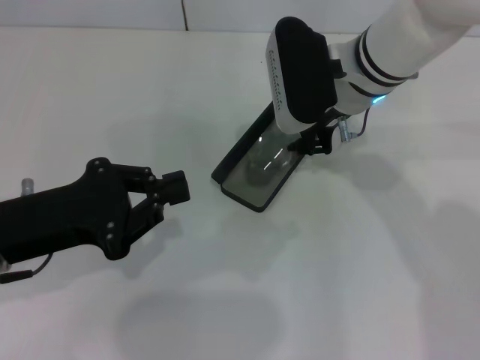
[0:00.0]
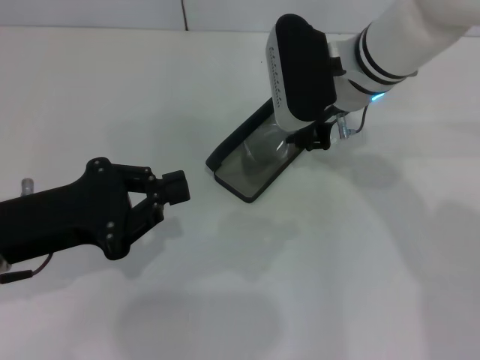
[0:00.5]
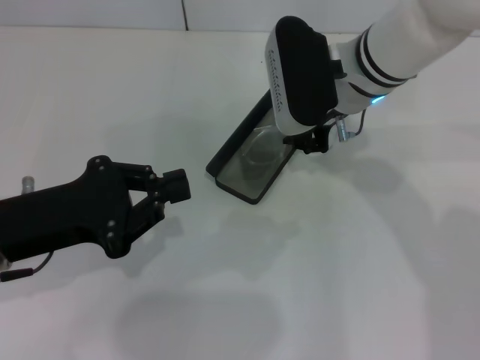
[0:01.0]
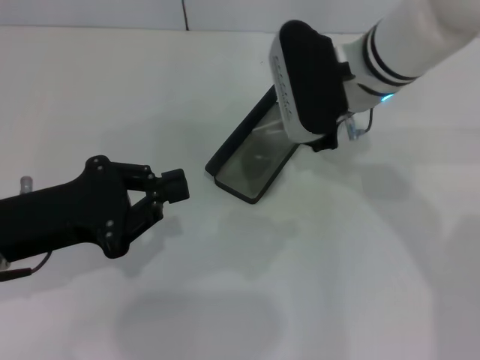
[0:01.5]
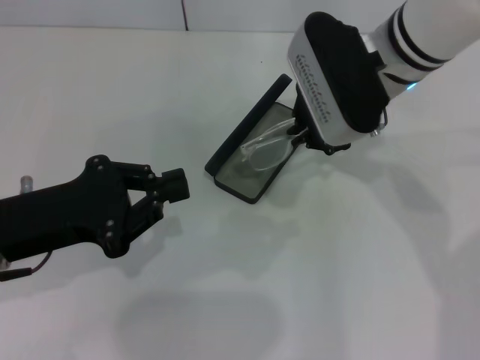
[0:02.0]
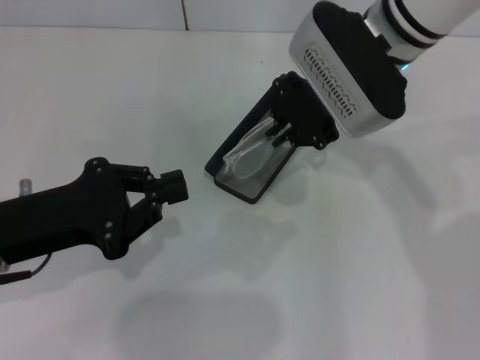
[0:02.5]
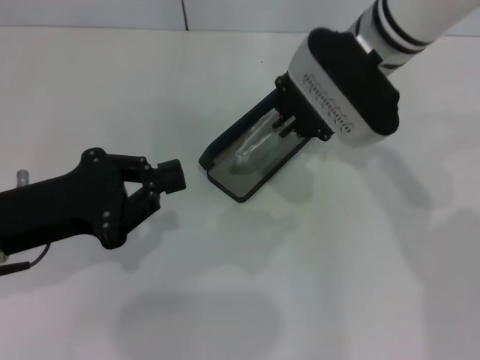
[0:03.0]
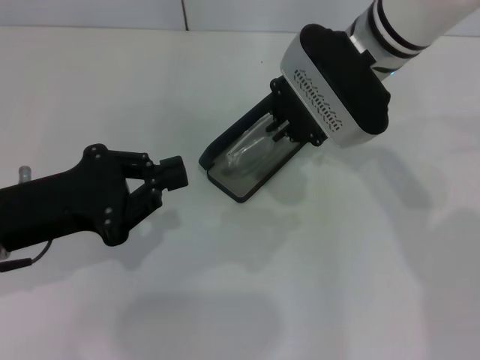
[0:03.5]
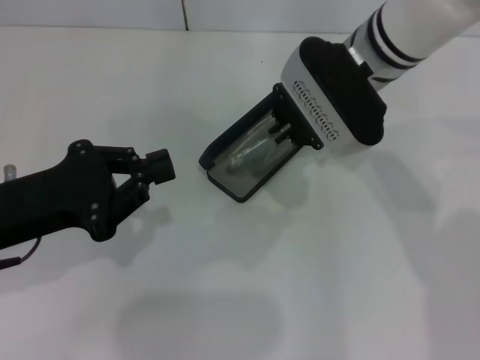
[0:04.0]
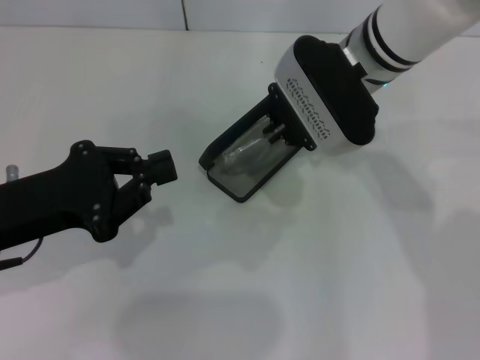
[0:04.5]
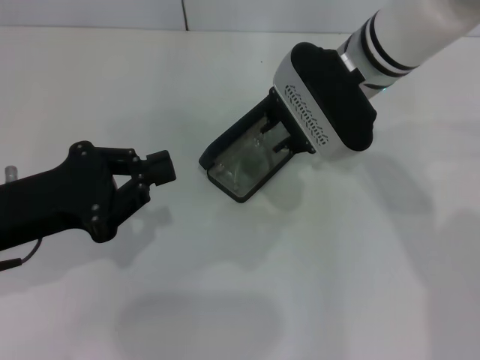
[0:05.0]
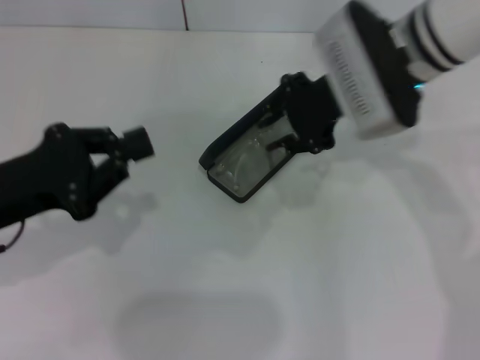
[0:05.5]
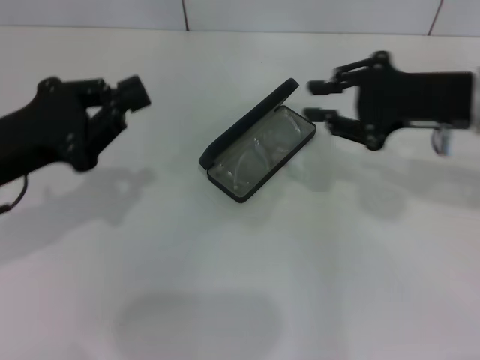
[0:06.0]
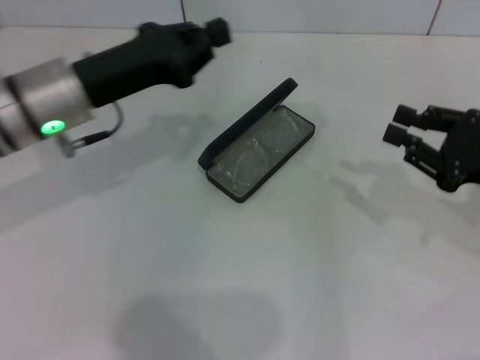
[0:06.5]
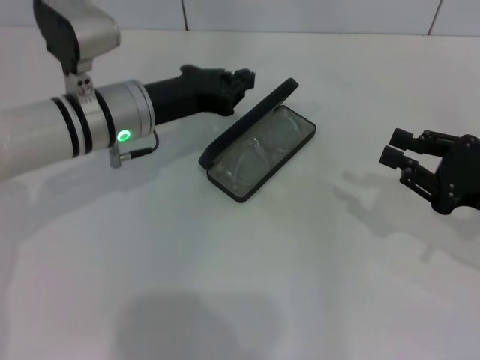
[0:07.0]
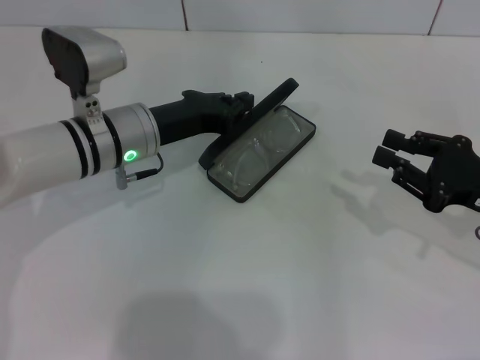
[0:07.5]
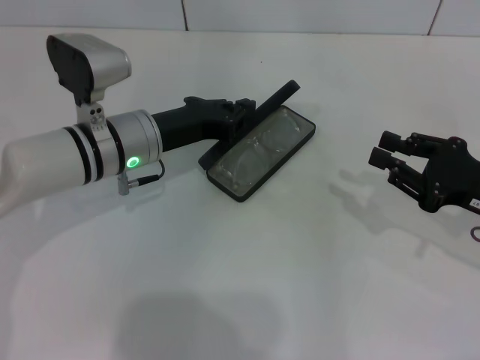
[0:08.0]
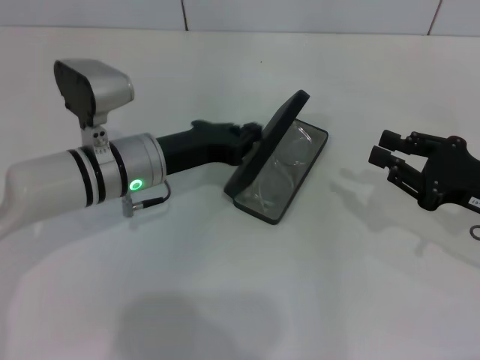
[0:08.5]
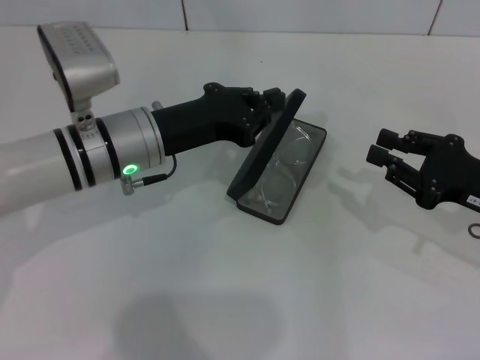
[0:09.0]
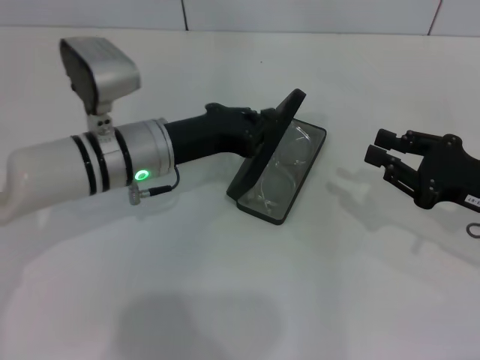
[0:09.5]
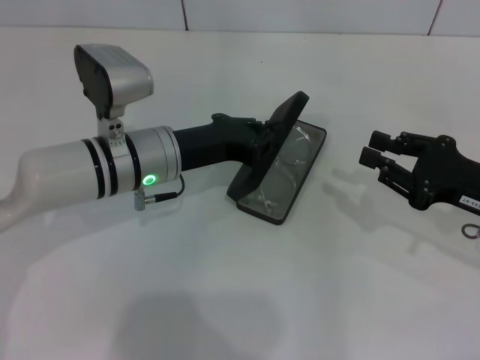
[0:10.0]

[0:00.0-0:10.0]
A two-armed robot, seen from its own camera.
Step, 0:00.0 to 0:05.0: Put the glasses into the case with your right hand.
0:00.0 to 0:02.0: The grippers make only small movements.
0:02.0 to 0:04.0: The grippers make only small movements.
0:04.0 to 0:06.0: The right gripper moves to the right and backward, approximately 15 cm.
0:06.0 to 0:08.0: The left gripper shifts some 15 cm to the right, forward and downward. The right gripper is displaced downward, backward and to the right by approximately 15 cm.
0:08.0 to 0:10.0: The grippers make only small movements.

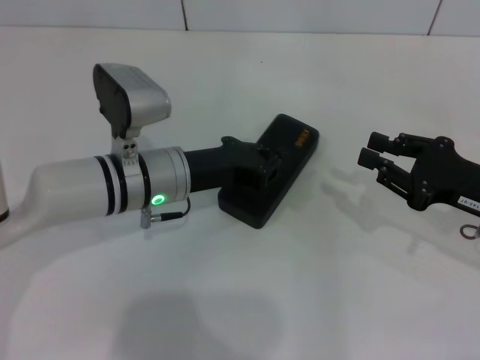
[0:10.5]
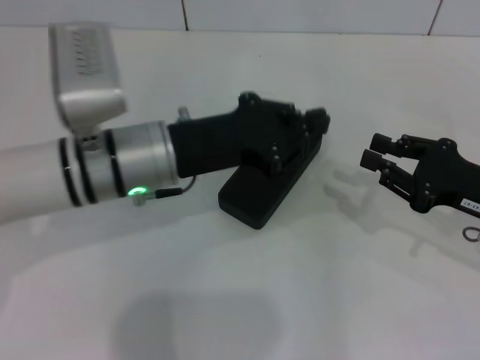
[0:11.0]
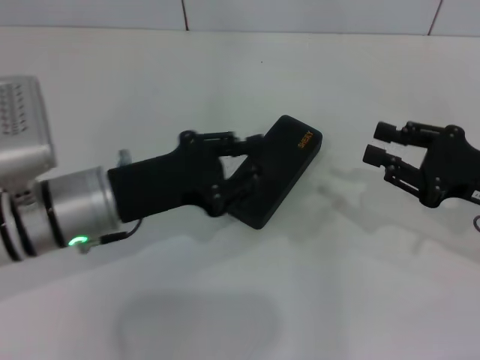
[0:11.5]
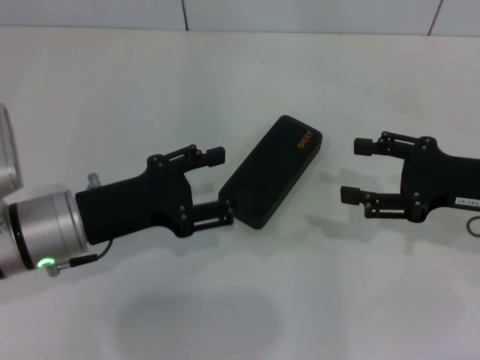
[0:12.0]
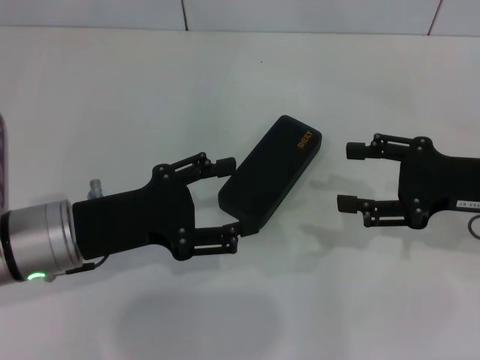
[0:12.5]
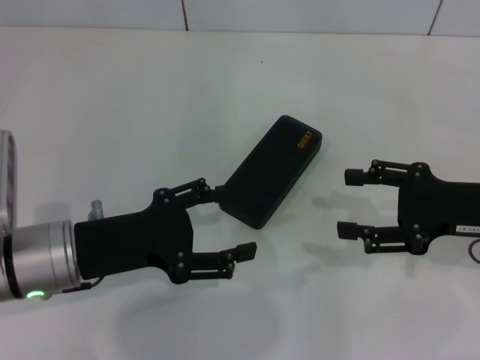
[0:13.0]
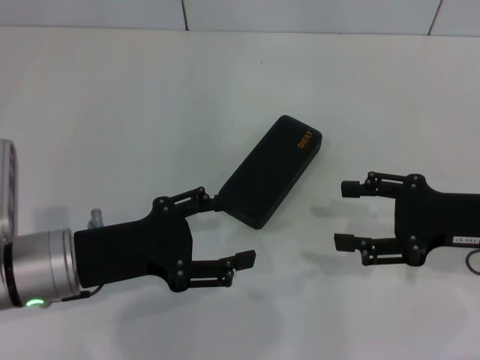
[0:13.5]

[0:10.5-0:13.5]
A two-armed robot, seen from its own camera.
0:10.5 to 0:12.0: The right gripper opens. The left gripper goes about 10 cm to the left and backward, and opens up.
0:12.0 to 0:13.5: The left gripper opens its fingers.
